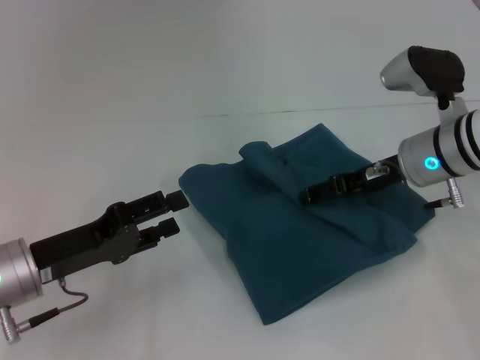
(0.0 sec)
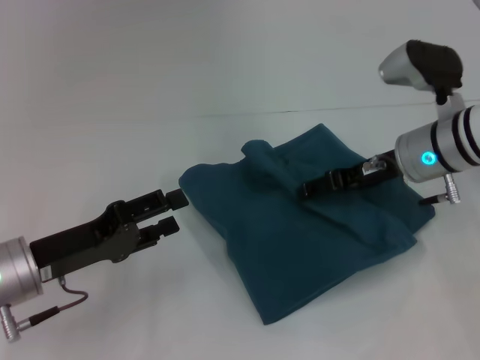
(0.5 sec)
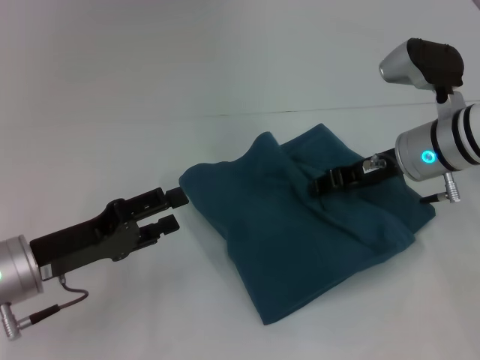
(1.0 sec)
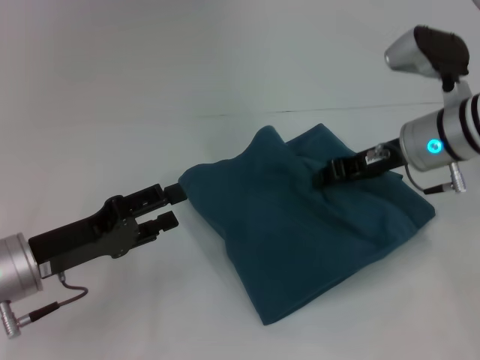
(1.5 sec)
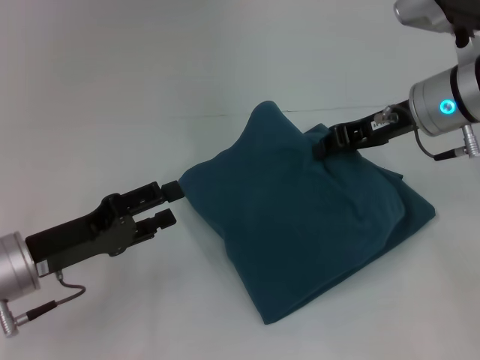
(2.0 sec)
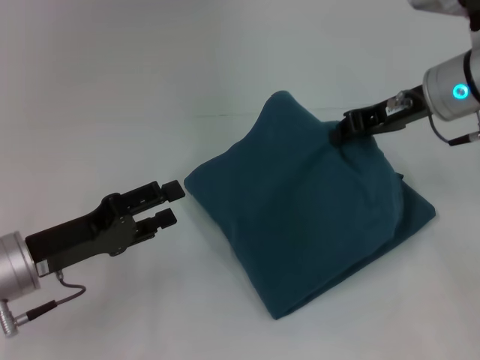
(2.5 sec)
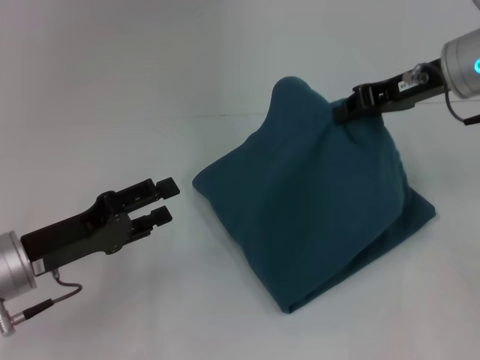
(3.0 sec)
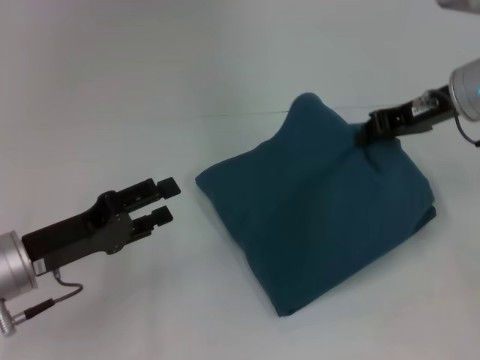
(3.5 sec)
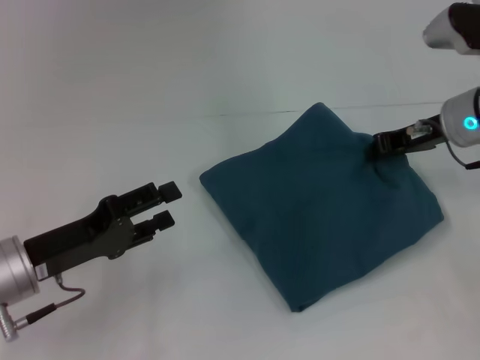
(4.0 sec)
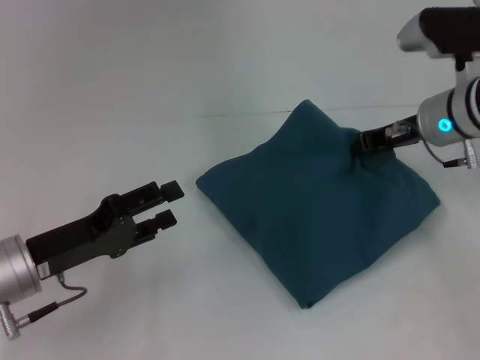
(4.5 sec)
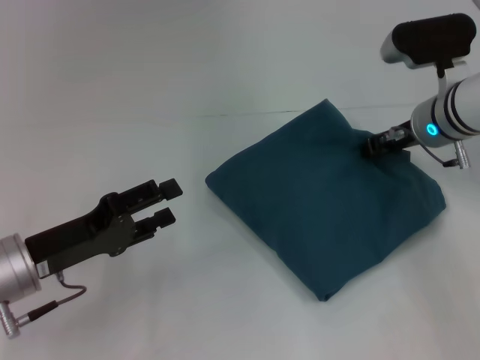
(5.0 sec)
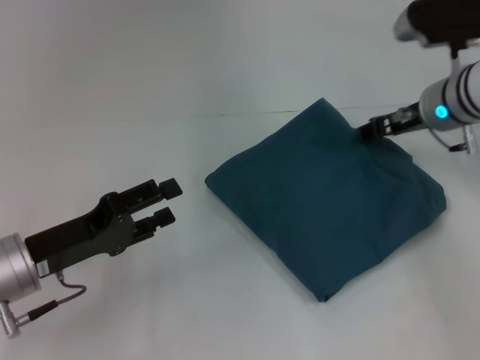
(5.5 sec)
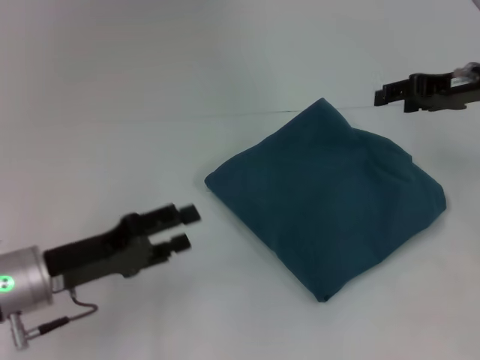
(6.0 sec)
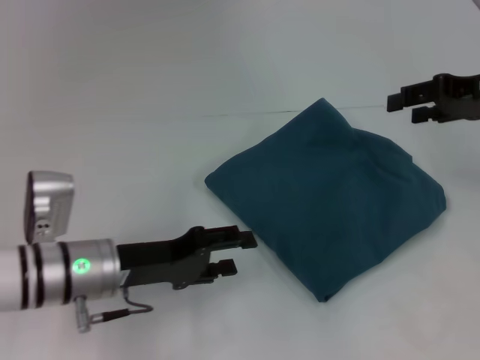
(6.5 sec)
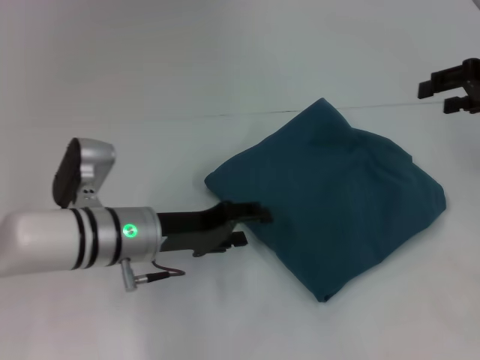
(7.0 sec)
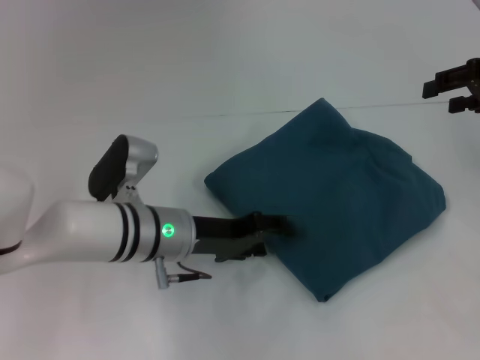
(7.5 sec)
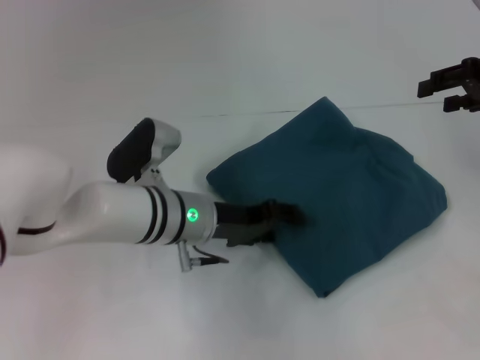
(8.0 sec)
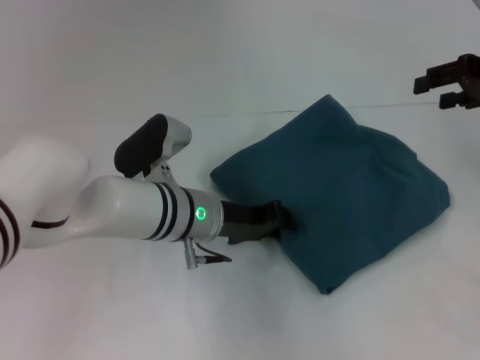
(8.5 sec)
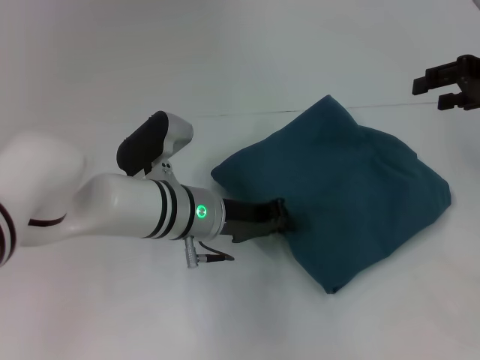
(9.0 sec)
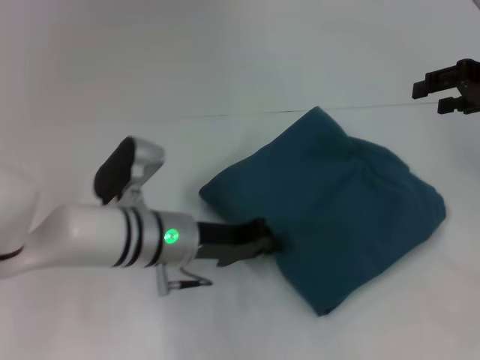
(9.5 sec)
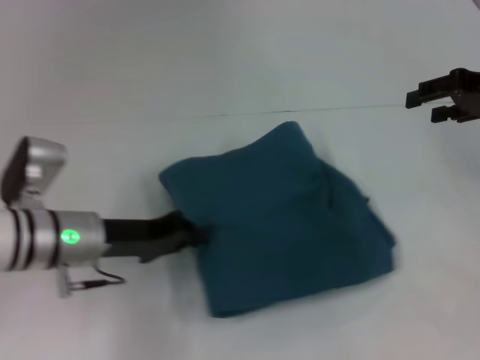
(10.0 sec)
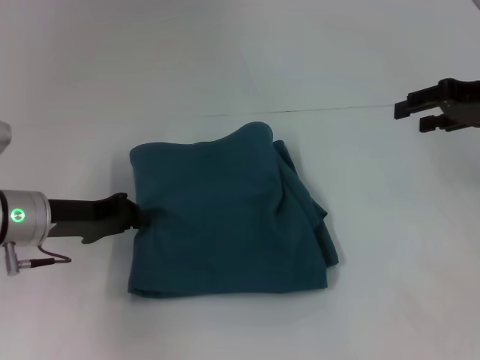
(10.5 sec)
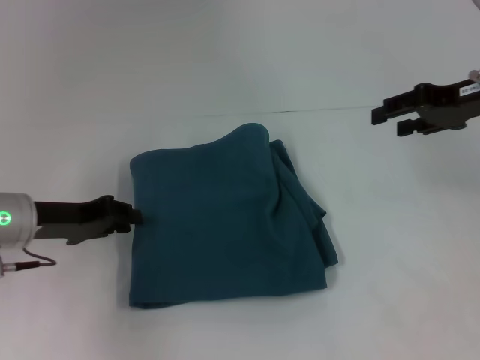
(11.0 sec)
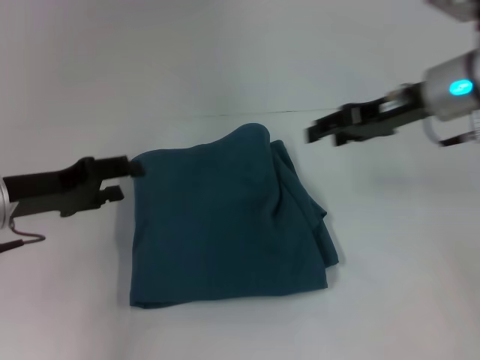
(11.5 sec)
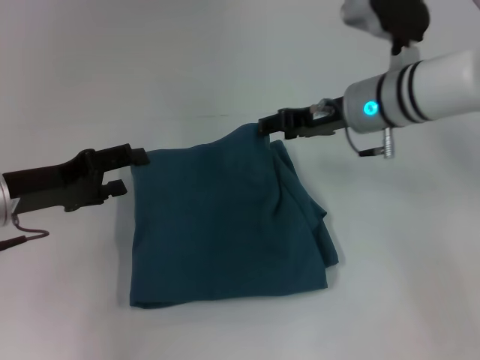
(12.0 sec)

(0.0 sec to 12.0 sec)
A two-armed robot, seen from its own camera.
0.0 sec - 2.0 sec: The right gripper is displaced upward by about 5 cm, and closes up.
2.0 sec - 4.0 sec: The right gripper ends up roughly 5 cm from where it was.
4.0 sec - 6.0 sec: The right gripper shifts by some 5 cm, and opens up.
6.0 sec - 8.0 sec: The right gripper is displaced to the right by some 5 cm, while the left gripper goes some 15 cm to the right and forward.
8.0 sec - 10.0 sec: The left gripper travels to the left by about 10 cm, and closes its fingers.
10.0 sec - 12.0 sec: The right gripper heads to the left, covering approximately 20 cm. The left gripper is displaced to the left and upward by roughly 10 cm, and opens up.

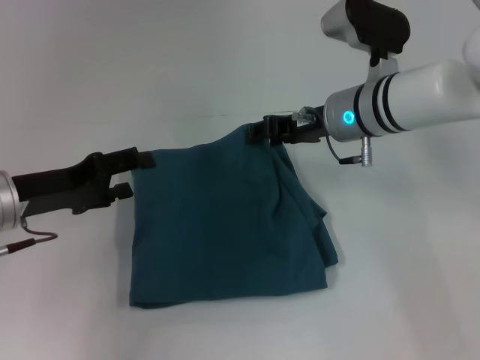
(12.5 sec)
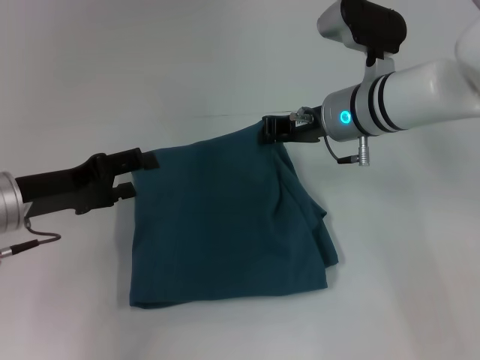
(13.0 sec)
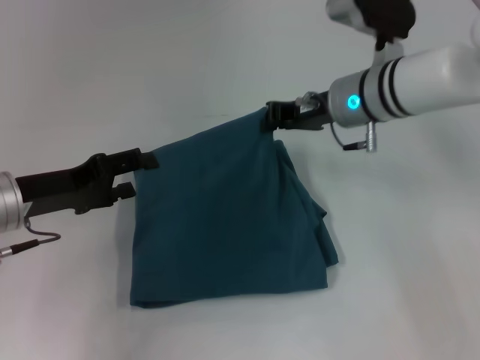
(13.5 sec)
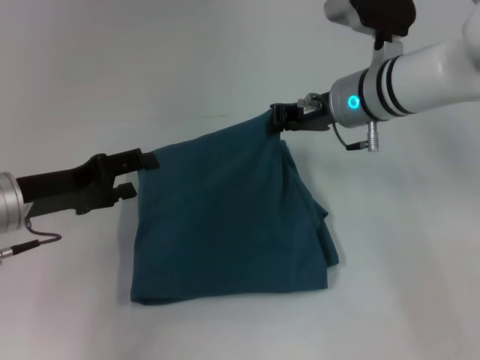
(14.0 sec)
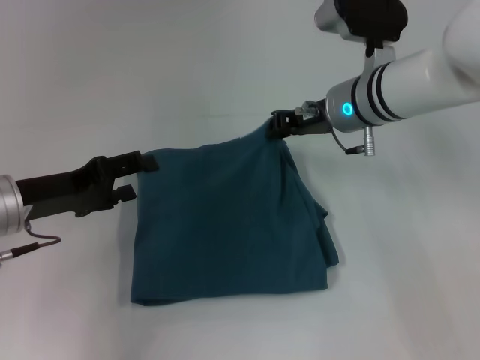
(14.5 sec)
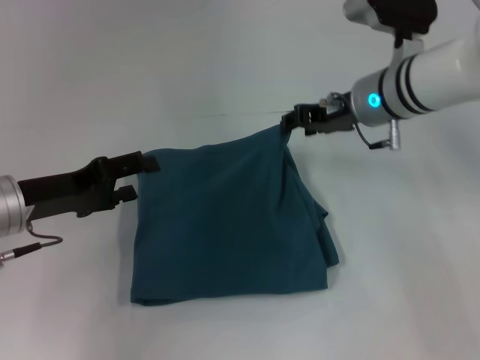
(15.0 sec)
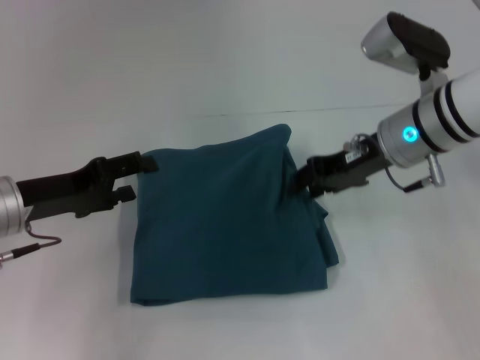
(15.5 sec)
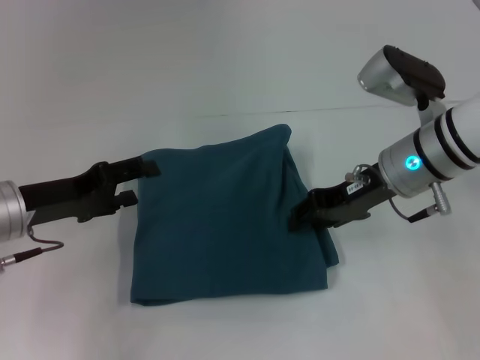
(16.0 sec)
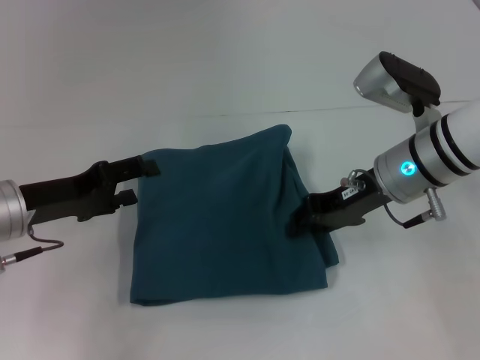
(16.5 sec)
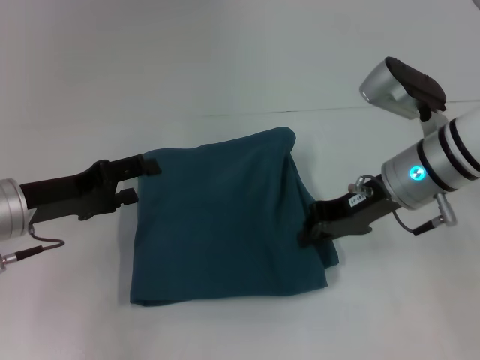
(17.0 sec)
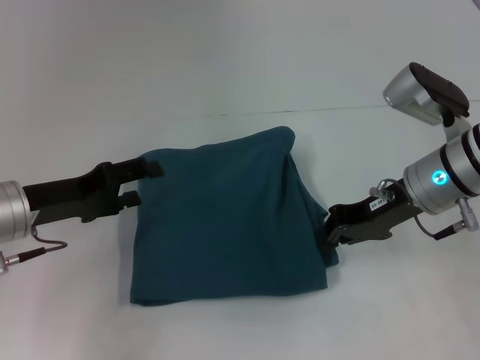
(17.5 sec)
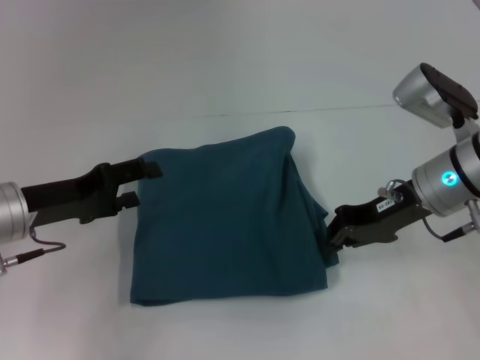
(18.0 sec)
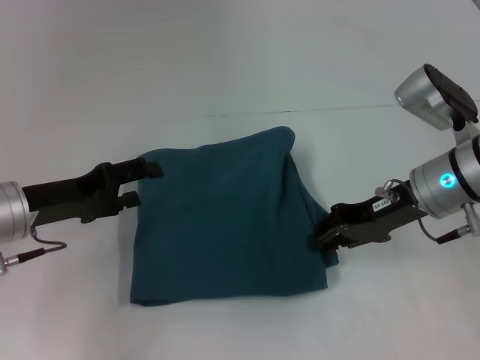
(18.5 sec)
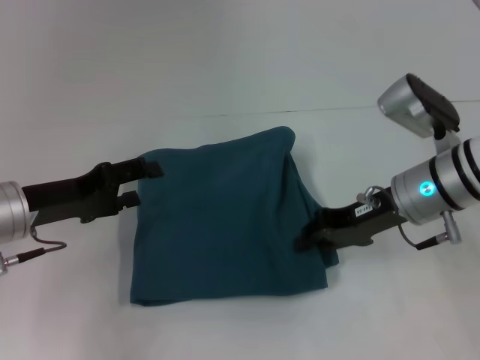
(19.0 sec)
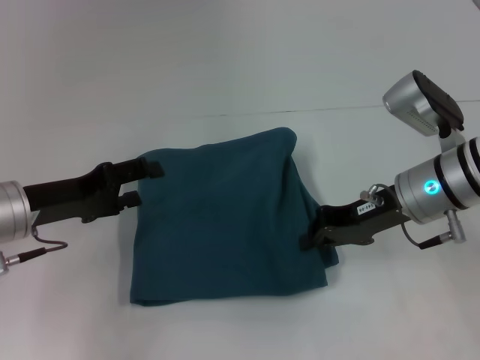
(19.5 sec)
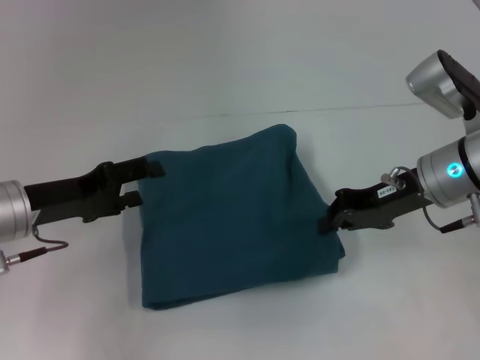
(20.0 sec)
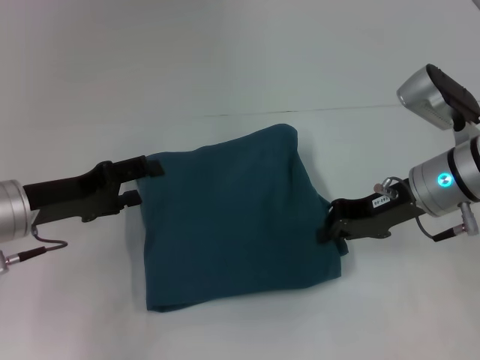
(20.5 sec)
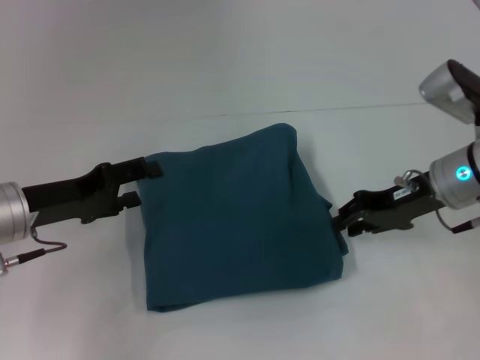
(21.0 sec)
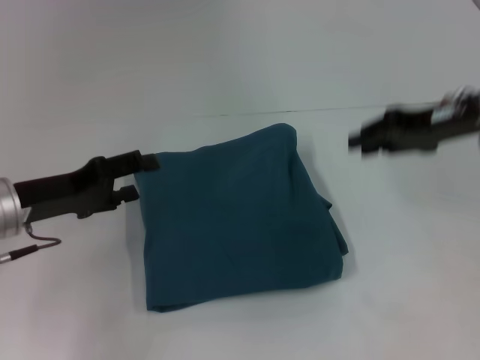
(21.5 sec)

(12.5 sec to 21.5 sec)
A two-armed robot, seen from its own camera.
12.5 sec - 14.5 sec: The right gripper closes its fingers.
14.5 sec - 17.0 sec: The right gripper moves backward, approximately 5 cm, and opens, then closes once more.
17.0 sec - 19.5 sec: The grippers stay close to where they were, moving slightly.
19.5 sec - 21.5 sec: The right gripper moves upward and to the right, some 10 cm.

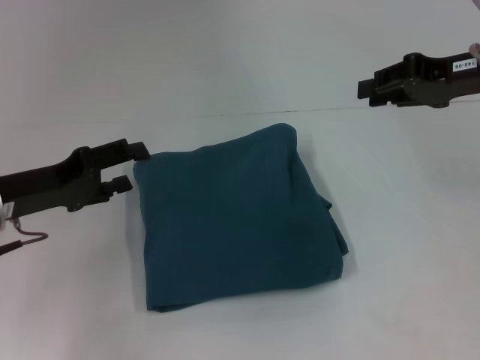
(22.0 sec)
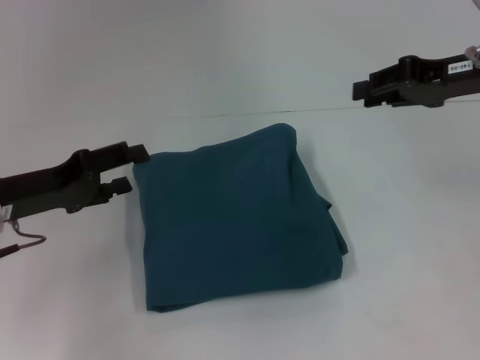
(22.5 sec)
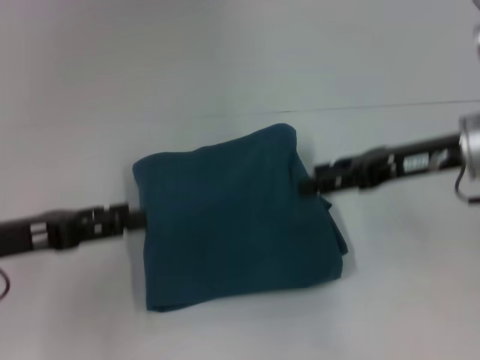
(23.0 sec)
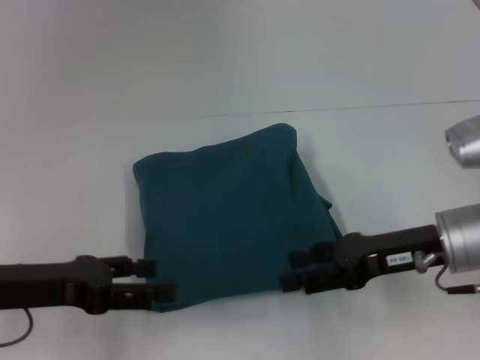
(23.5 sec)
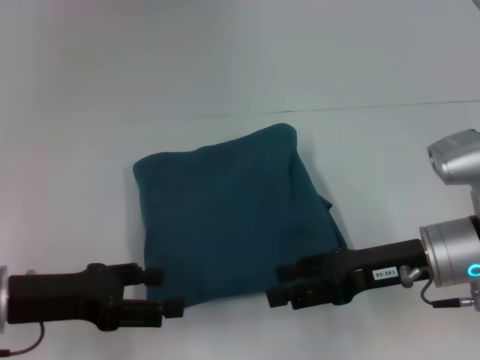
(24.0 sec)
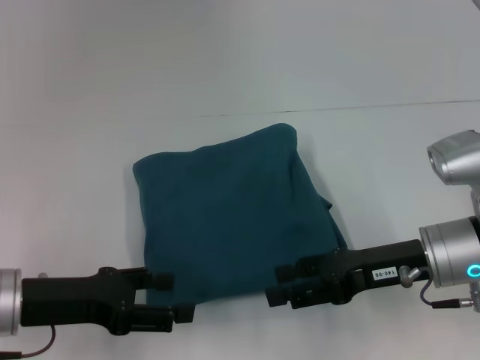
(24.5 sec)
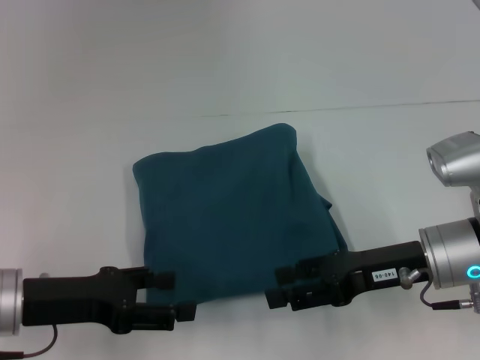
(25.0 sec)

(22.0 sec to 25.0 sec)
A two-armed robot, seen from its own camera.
22.0 sec - 23.5 sec: The right gripper goes roughly 15 cm downward, backward and to the left, and opens up. The left gripper moves backward, about 5 cm.
23.5 sec - 25.0 sec: The grippers make only small movements.
